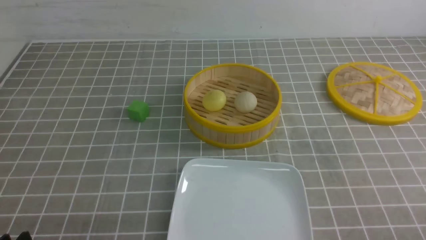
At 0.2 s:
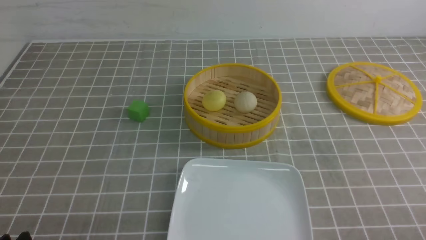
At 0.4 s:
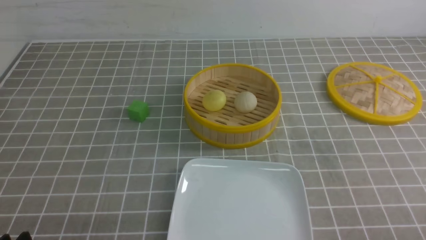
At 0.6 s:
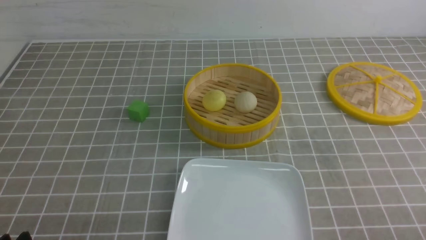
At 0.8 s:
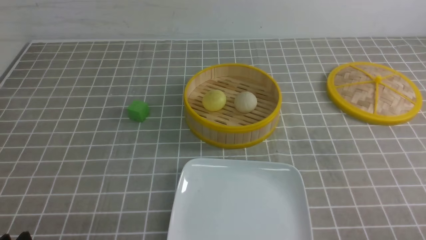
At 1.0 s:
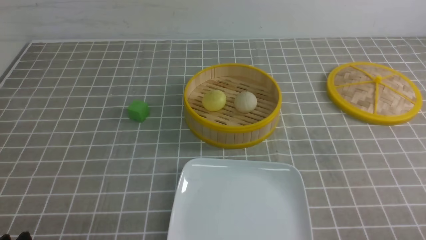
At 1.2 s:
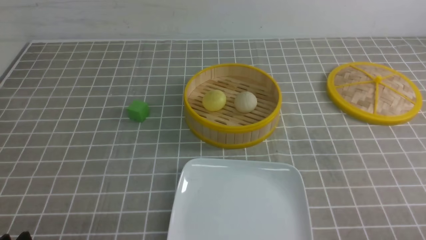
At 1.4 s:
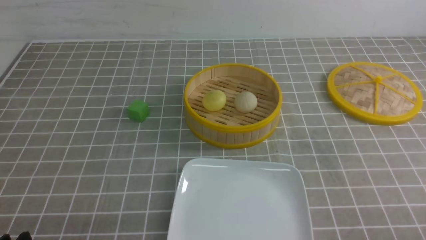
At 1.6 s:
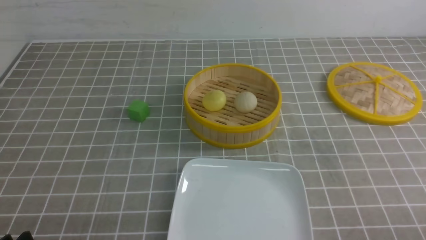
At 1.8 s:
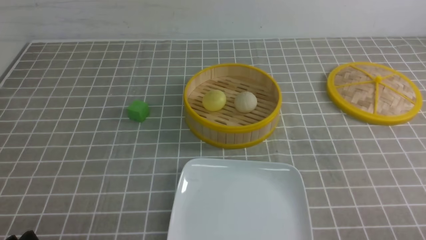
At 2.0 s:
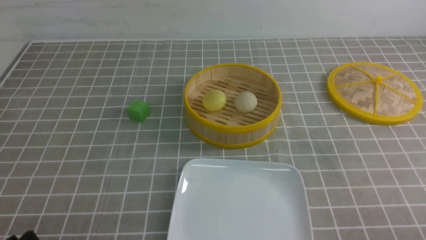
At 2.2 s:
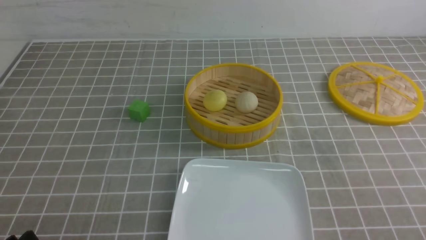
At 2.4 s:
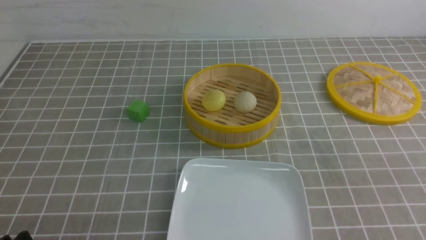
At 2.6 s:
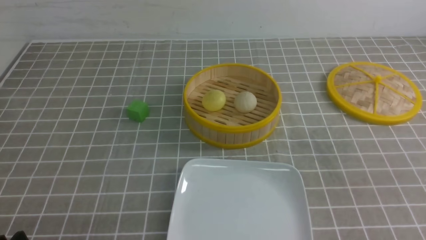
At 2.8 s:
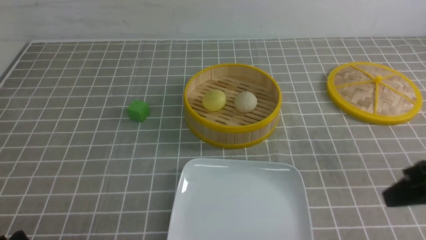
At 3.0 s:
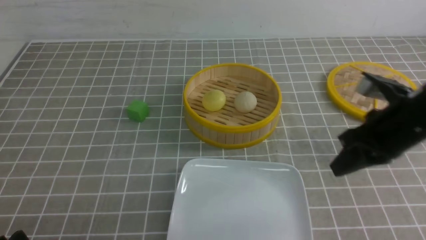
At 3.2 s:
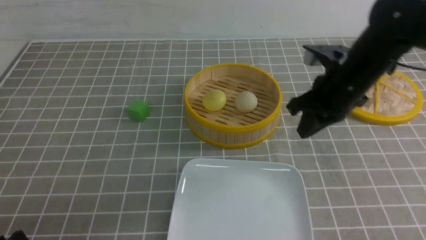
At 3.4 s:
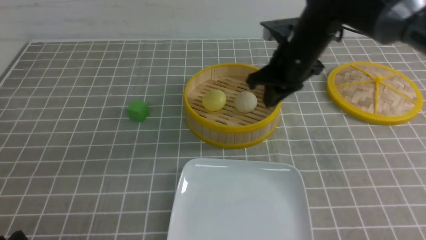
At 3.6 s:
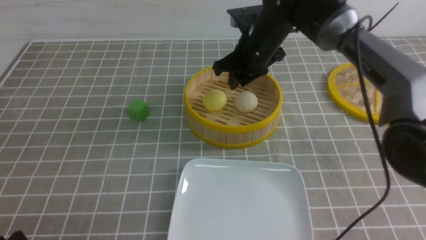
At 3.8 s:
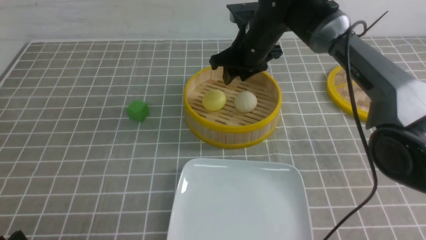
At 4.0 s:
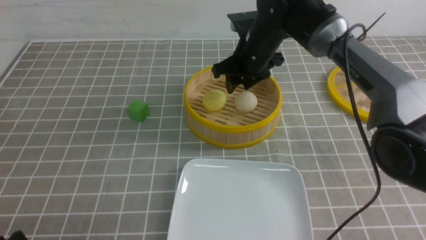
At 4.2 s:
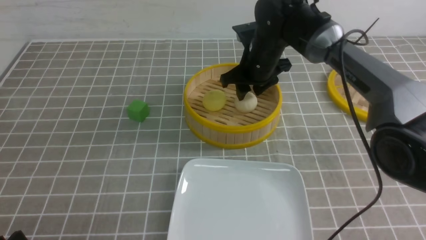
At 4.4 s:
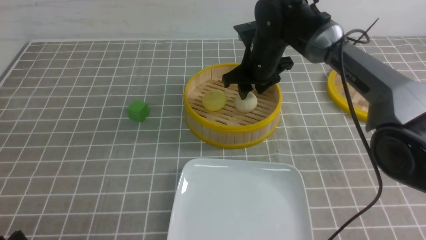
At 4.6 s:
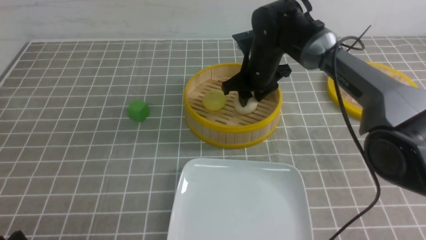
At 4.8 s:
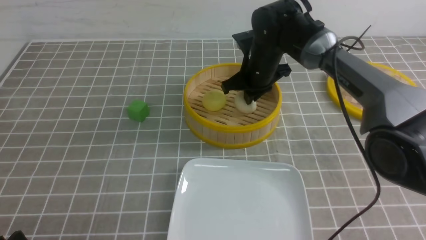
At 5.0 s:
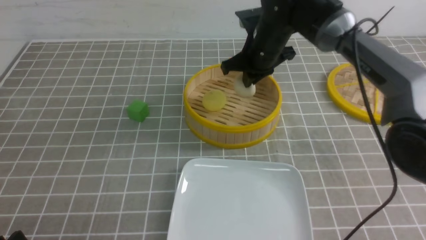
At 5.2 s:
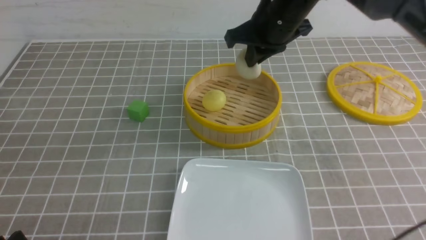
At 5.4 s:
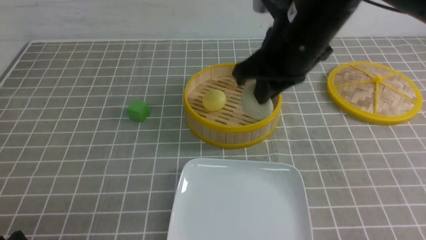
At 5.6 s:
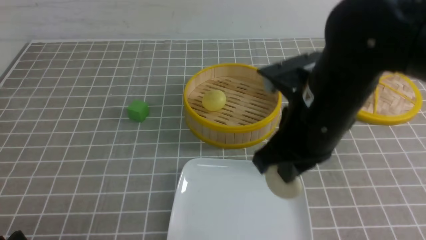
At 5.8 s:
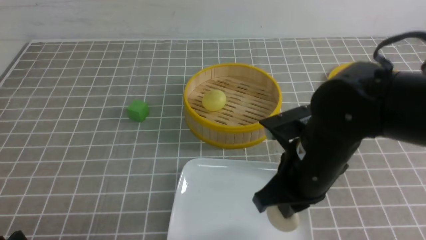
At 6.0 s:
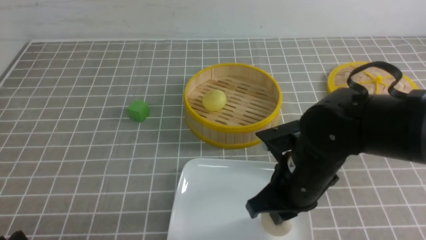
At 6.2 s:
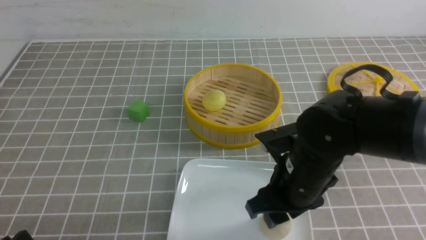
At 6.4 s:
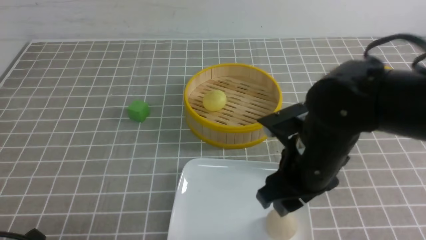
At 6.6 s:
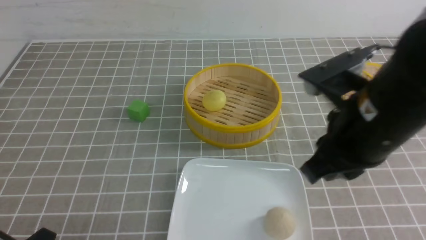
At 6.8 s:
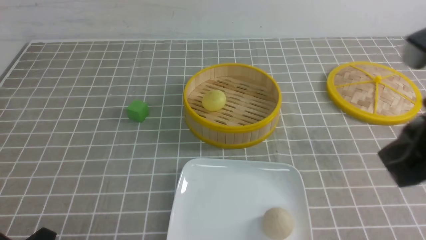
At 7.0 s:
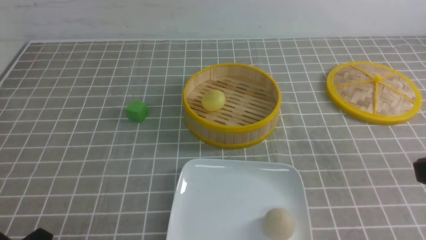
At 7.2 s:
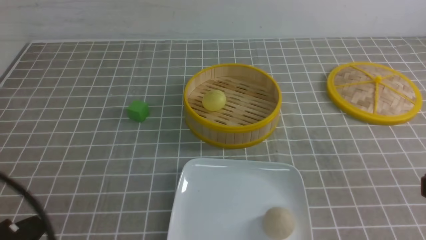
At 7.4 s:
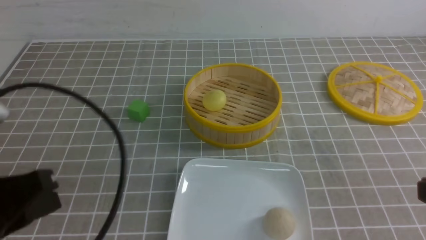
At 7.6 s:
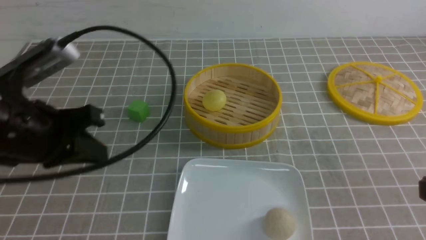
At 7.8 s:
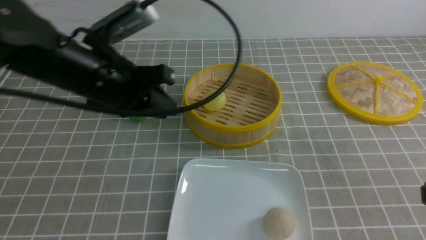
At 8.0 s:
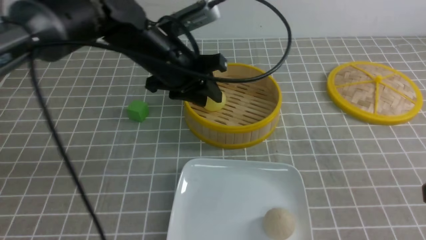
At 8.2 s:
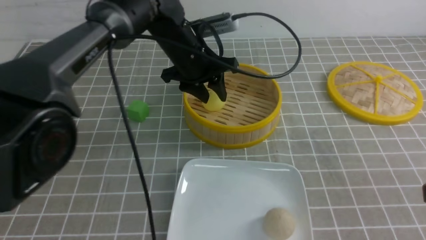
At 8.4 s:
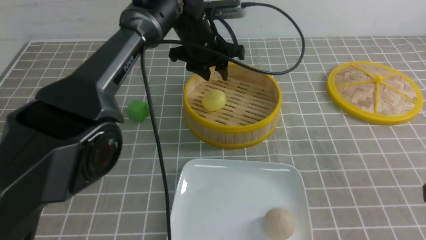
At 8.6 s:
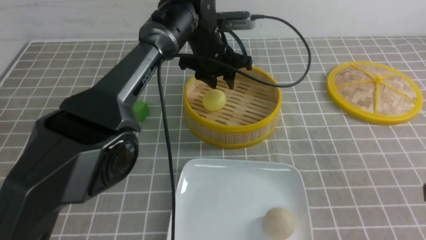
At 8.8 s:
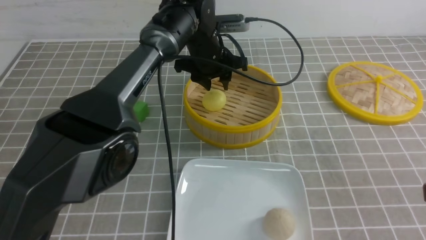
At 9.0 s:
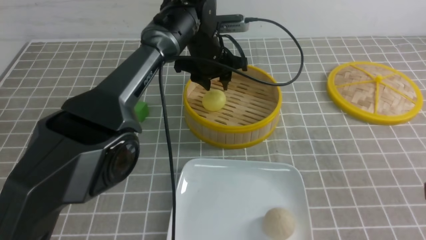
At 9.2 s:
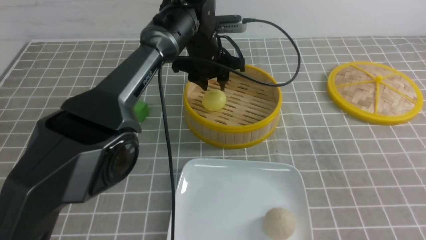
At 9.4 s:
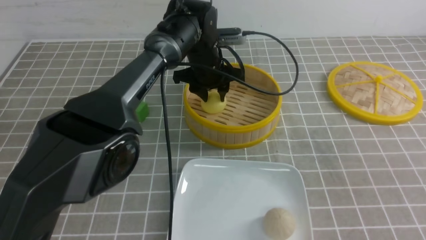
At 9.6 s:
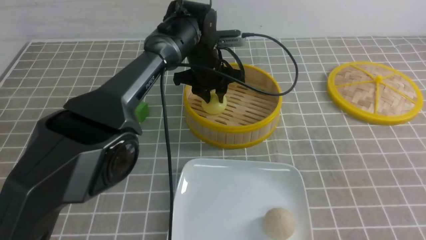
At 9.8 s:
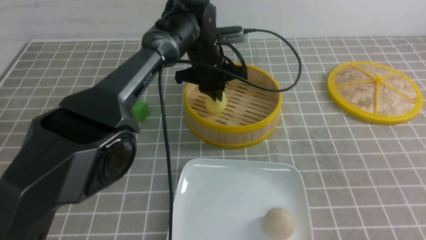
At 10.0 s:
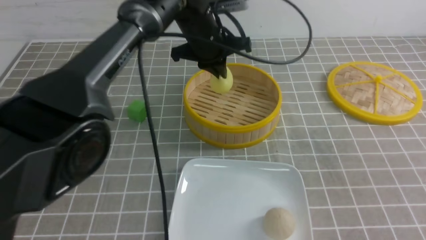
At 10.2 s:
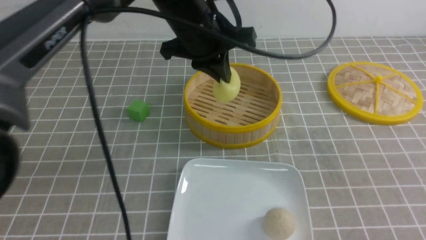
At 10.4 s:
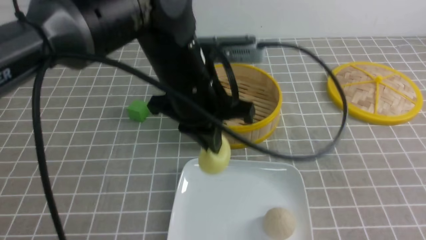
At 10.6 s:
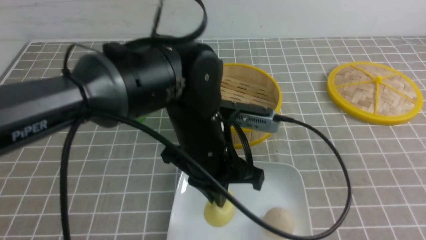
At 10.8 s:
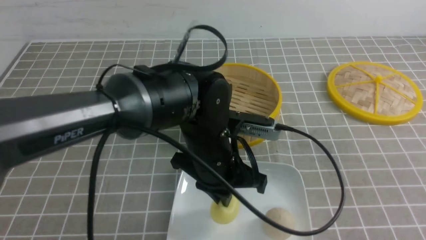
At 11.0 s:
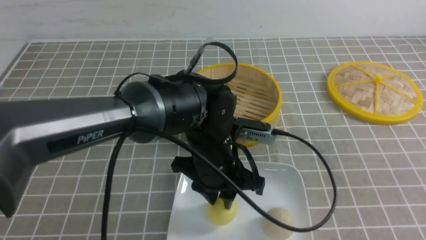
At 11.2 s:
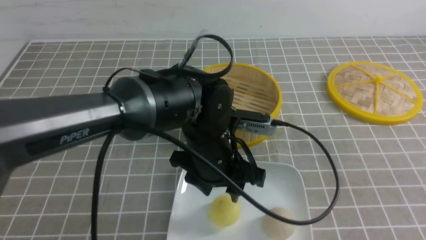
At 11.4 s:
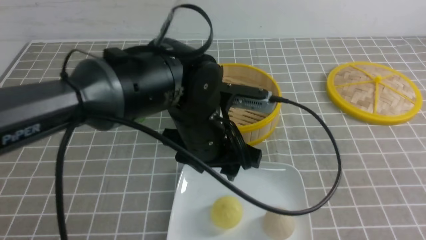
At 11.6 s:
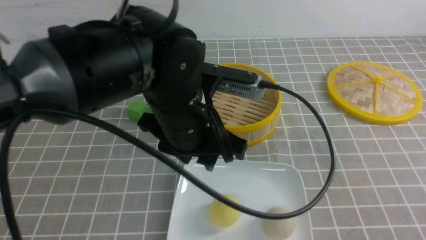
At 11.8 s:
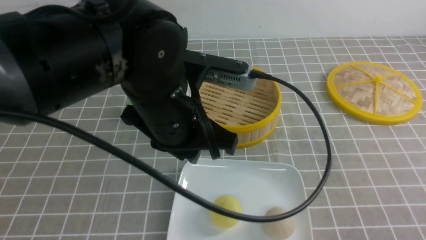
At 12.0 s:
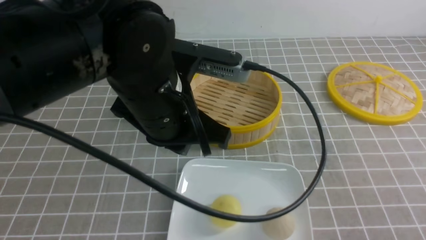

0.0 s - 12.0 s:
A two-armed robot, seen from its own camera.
Step, 0.0 s - 4.8 s: use the right arm to grab the steamed stuffed bun that is closest to it.
Step, 5.0 s - 6.2 s: use the right arm to put the steamed stuffed bun into the plate.
Step, 6.4 s - 9.8 s: use the left arm to grab the steamed stuffed bun that is closest to it.
Step, 10.0 s - 11.2 s: use the left arm to put the steamed stuffed bun into the plate.
1.6 s - 3.0 s: The right gripper travels forward, upward and to the left by roughly 25 cm, and closes up.
3.0 s - 4.4 s: The right gripper goes approximately 25 cm forward and to the left, and opens its fingers.
4.4 s - 6.0 s: The right gripper goes about 25 cm backward, and closes.
6.0 s - 7.6 s: The right gripper goes roughly 25 cm to the right, backward and upward, and closes up. Meanwhile the left gripper travels forward, upward and to the right by roughly 25 cm, and closes.
7.6 s - 9.0 s: The left gripper shifts about 30 cm forward and to the right, and opens up.
9.0 s - 10.4 s: The left gripper shifts roughly 20 cm backward, and closes.
10.4 s - 12.0 s: The two grippers go some 5 cm backward. The left gripper goes downward and returns, about 10 cm each way, and opens and closes again.

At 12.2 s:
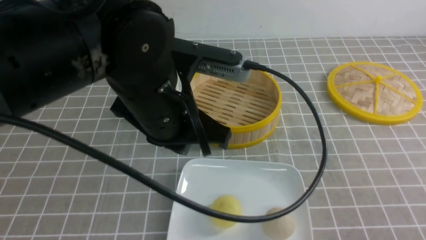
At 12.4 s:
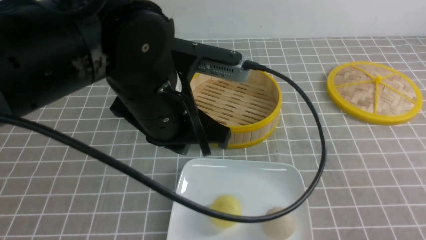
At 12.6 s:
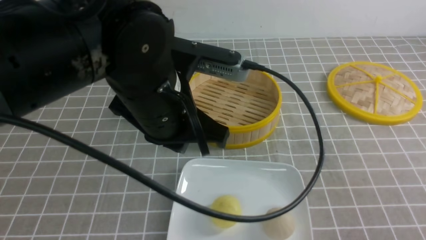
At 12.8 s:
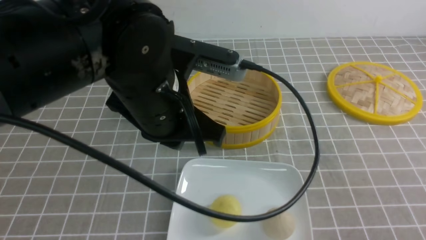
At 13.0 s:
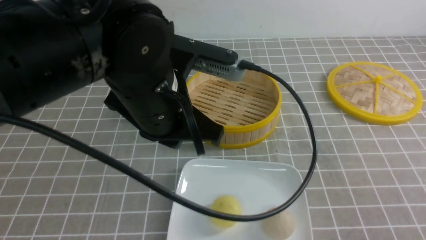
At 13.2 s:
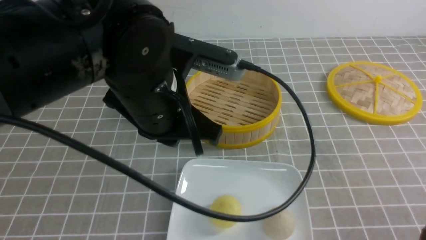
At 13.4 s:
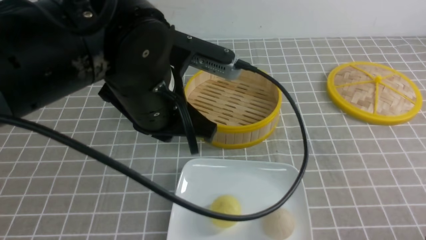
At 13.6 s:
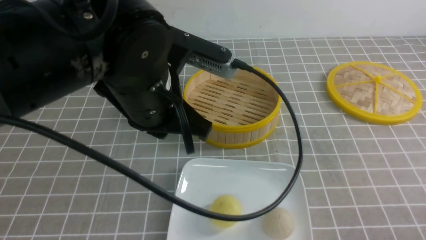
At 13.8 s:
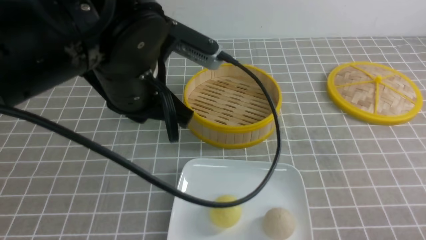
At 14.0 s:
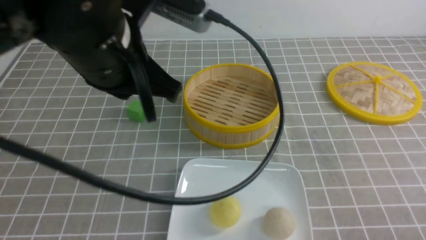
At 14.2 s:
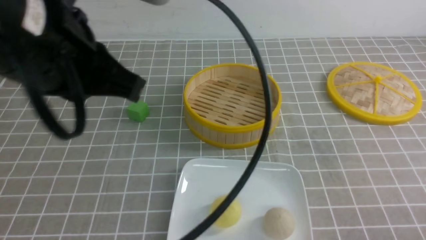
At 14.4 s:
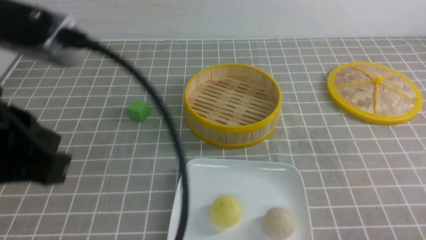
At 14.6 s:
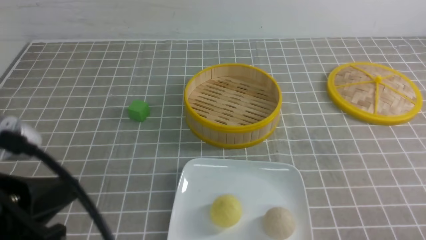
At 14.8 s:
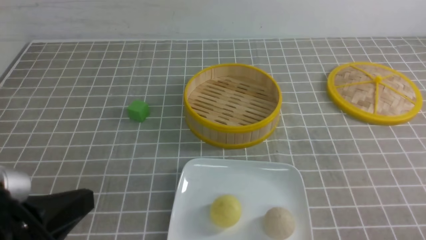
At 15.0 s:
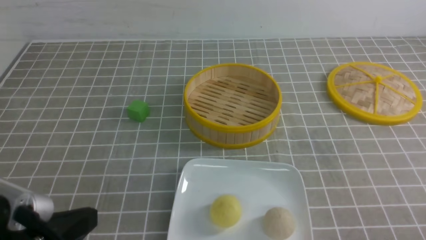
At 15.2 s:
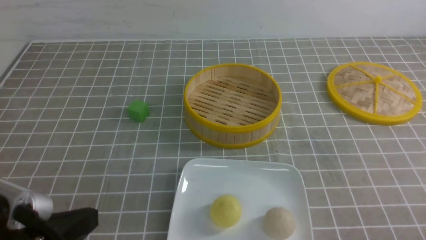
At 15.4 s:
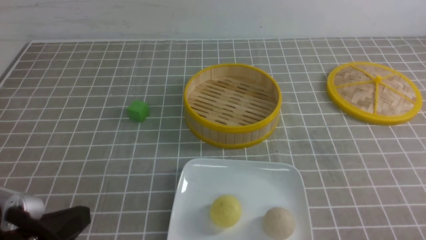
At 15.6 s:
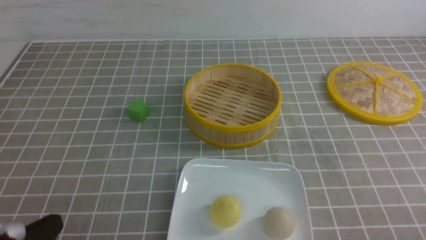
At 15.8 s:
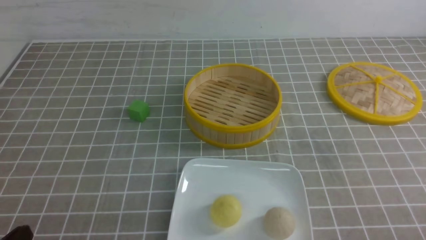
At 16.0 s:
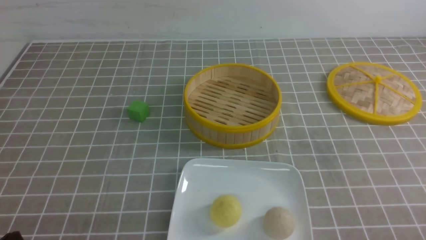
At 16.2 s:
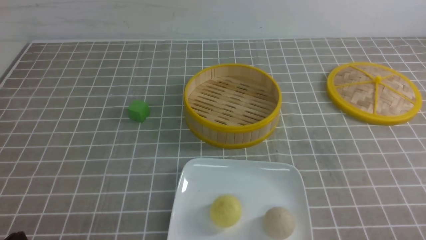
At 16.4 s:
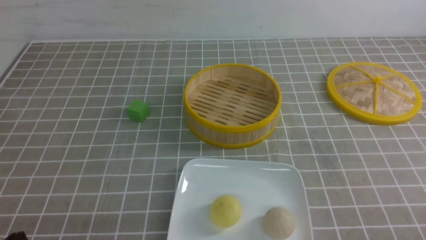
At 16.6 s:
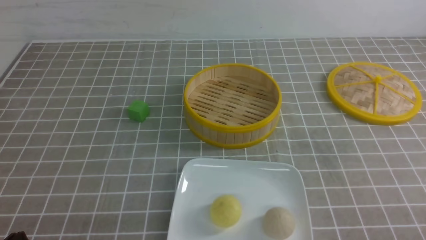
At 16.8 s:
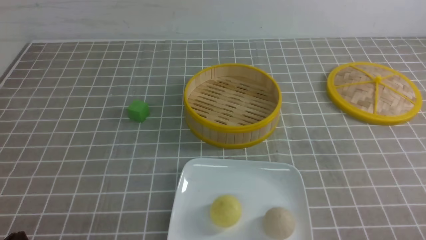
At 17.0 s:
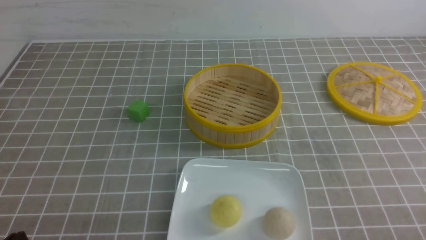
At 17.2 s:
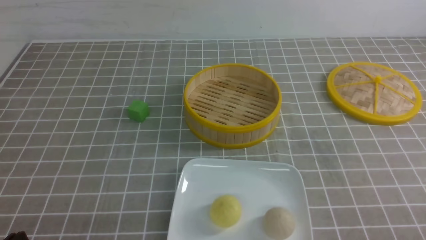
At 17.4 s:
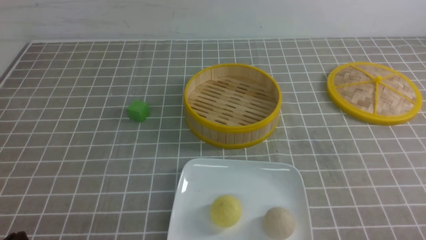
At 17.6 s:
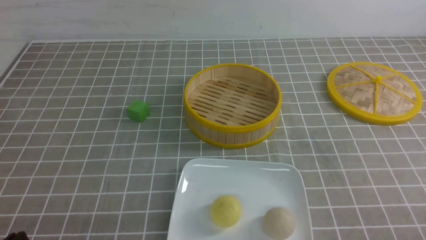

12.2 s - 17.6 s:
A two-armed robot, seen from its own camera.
12.2 s - 13.6 s: The right gripper travels downward by some 10 cm.
13.6 s - 15.0 s: The left gripper moves backward and to the left, about 20 cm.
15.0 s - 16.2 s: The left gripper shifts approximately 10 cm downward and to the left.
16.2 s - 17.6 s: Both grippers stay about where they are.
